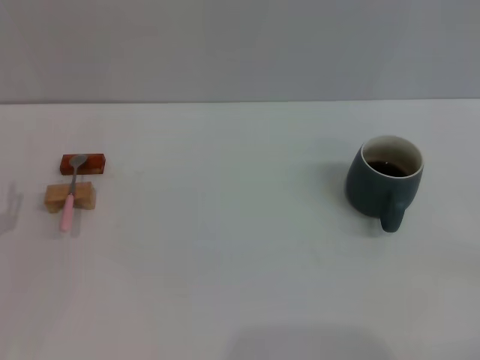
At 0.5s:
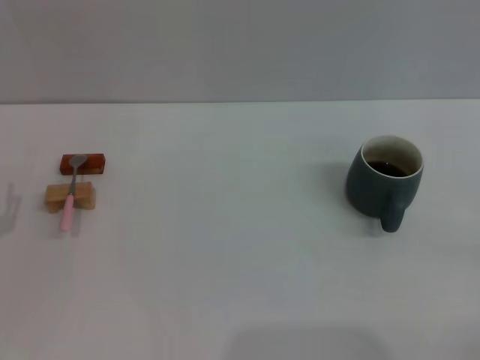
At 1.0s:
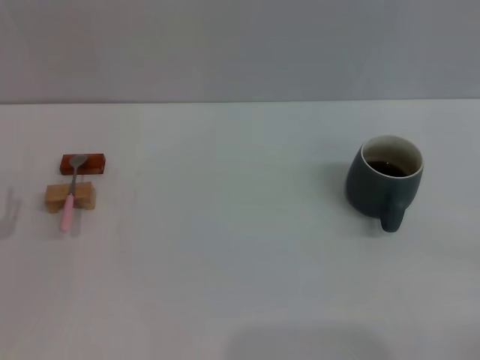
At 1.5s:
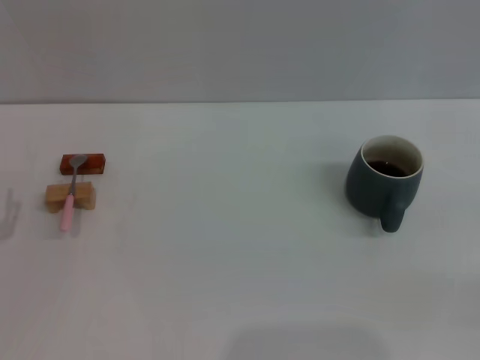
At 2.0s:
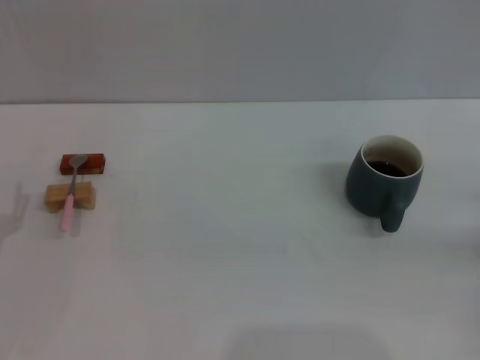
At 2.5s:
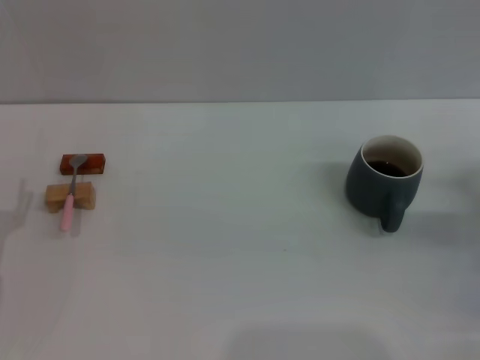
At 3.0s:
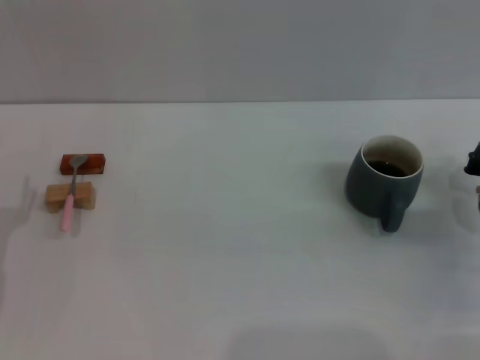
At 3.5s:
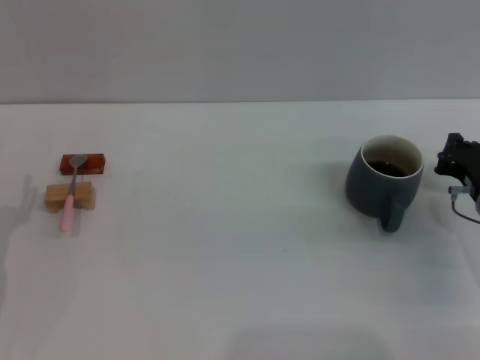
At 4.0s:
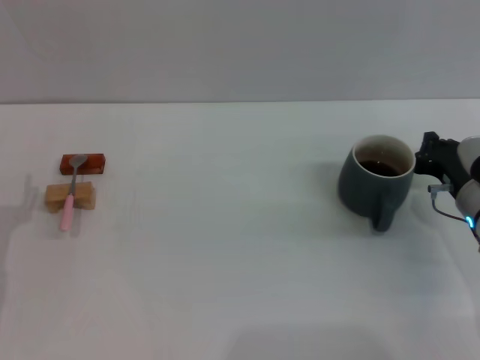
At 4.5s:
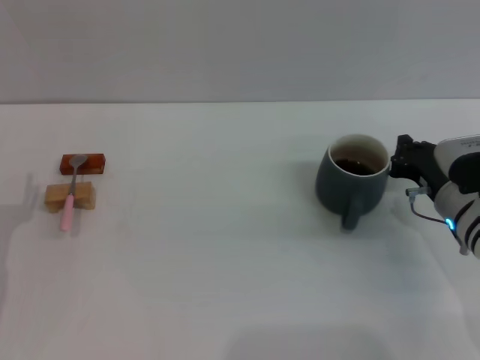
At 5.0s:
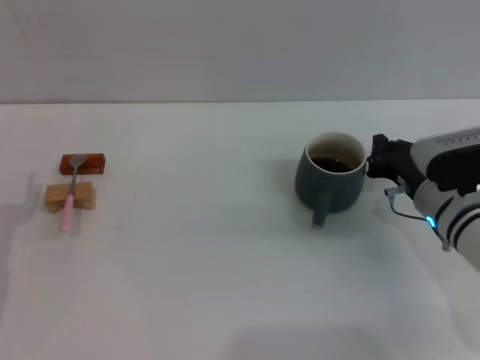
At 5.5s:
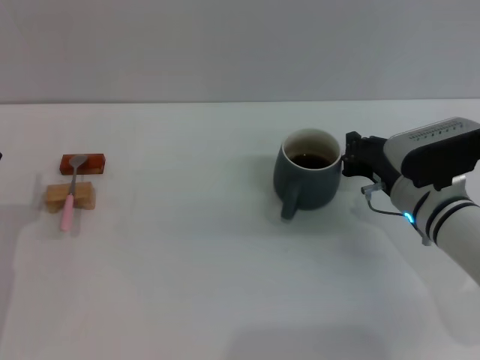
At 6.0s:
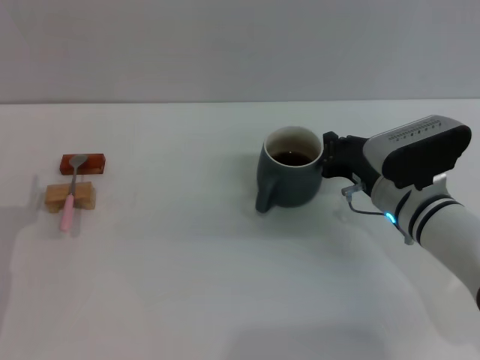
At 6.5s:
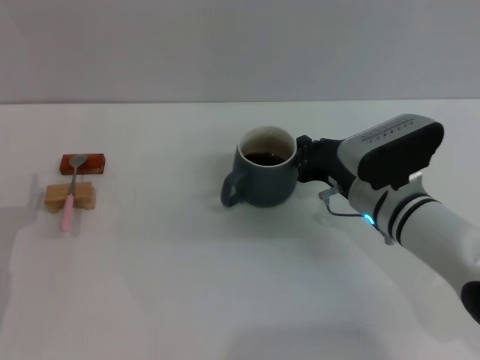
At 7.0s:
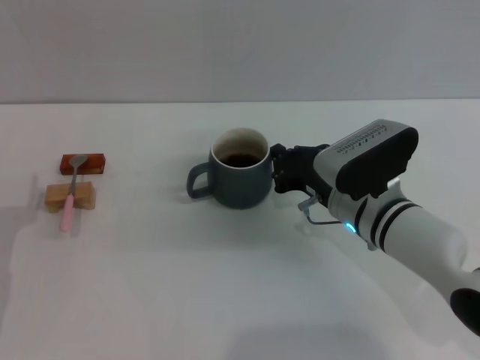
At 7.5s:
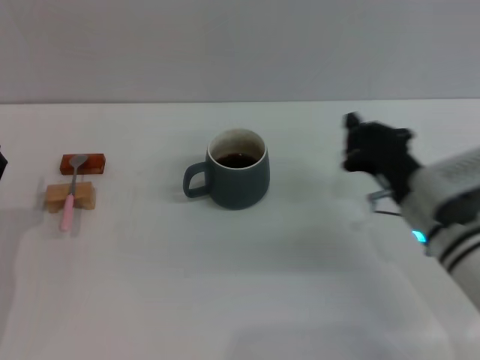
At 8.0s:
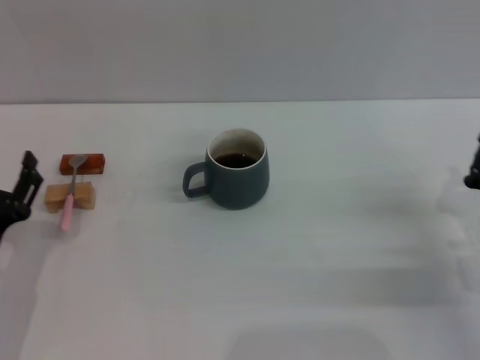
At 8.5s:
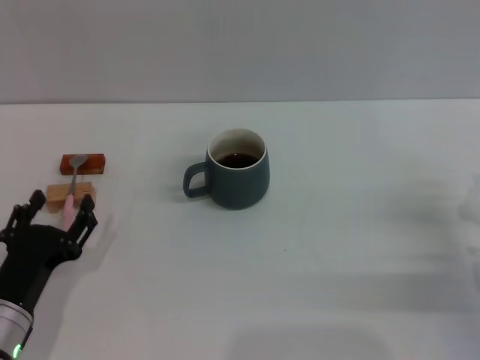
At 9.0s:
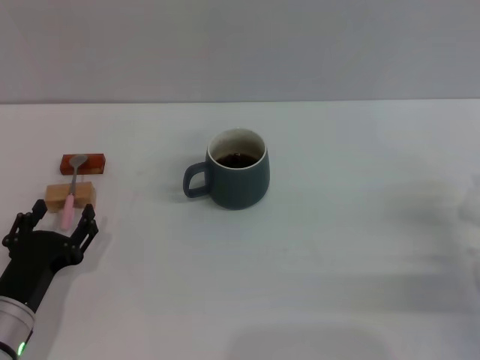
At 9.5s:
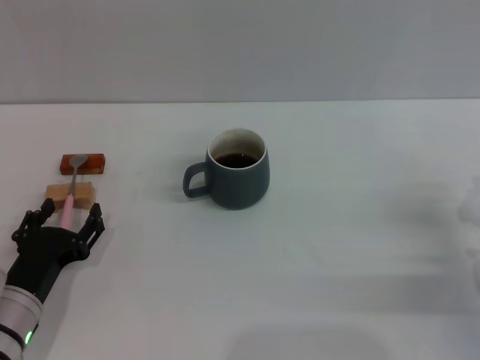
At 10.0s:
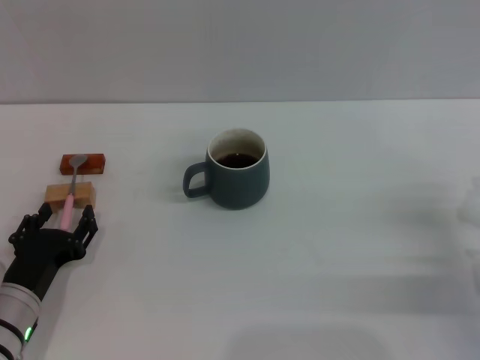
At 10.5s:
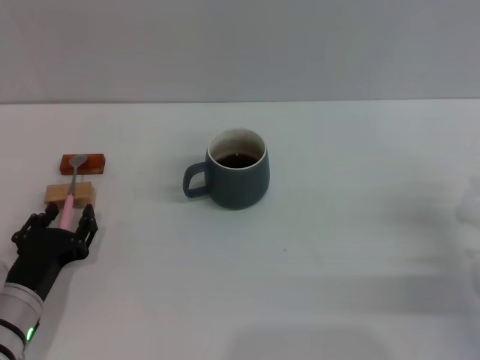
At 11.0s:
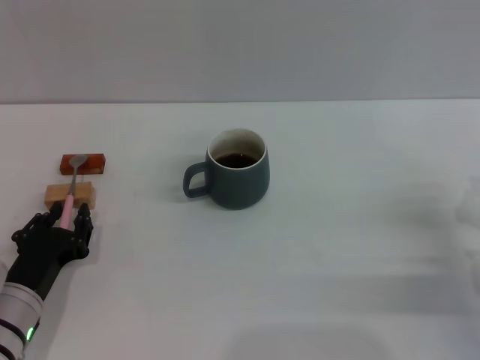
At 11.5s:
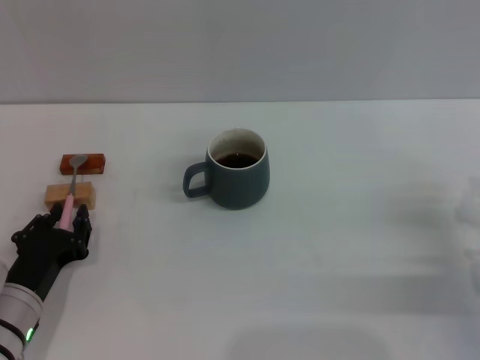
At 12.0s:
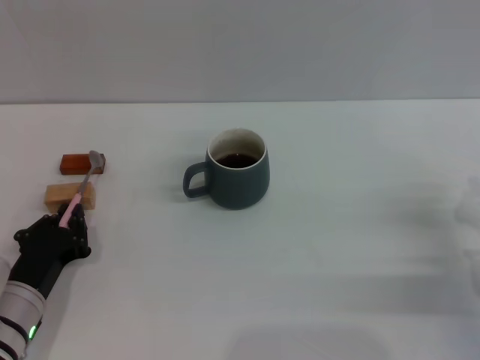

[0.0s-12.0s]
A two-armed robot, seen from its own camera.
Task of the whole recording: Move the grey cup to the center, lift the pink spoon, stir it three times in the cup, and put the spoon into the cup.
Step, 0.0s to 7.0s: Move the cup with coffee to the center of view with the right gripper.
2.0s to 4.0s: The right gripper travels to the left by some 10 cm.
4.0s to 6.0s: The right gripper shifts about 10 cm to the left.
6.0s to 8.0s: The right gripper heads to the right and backward, covering some 15 cm.
8.0s to 10.0s: The grippers move only a little.
10.0s to 12.0s: The left gripper closes.

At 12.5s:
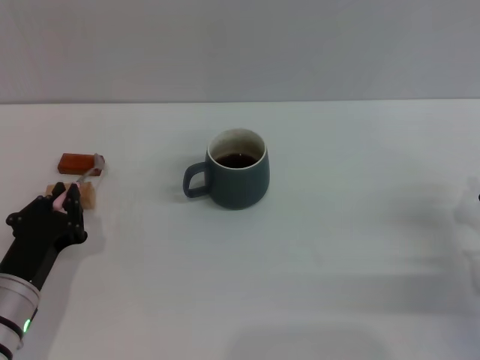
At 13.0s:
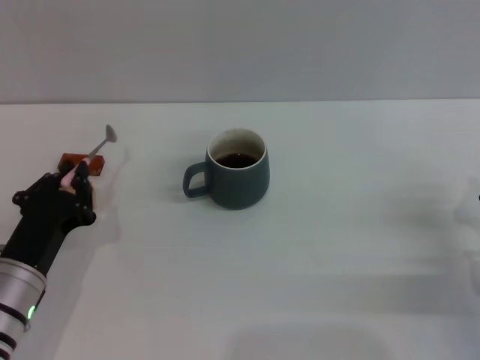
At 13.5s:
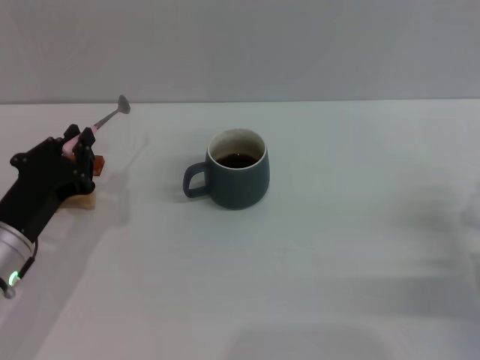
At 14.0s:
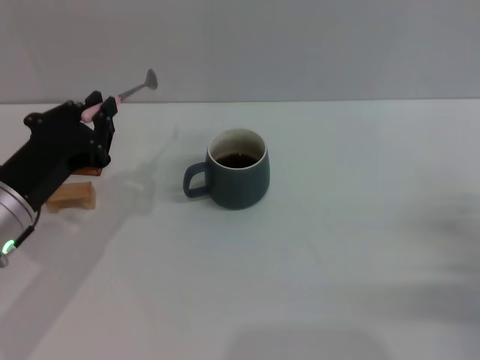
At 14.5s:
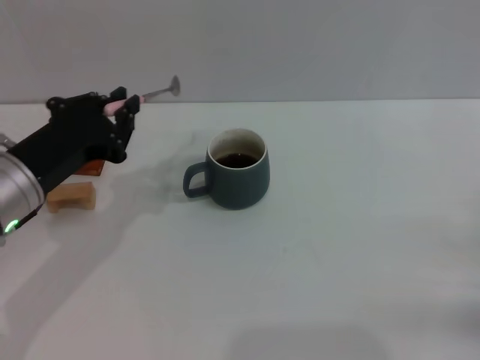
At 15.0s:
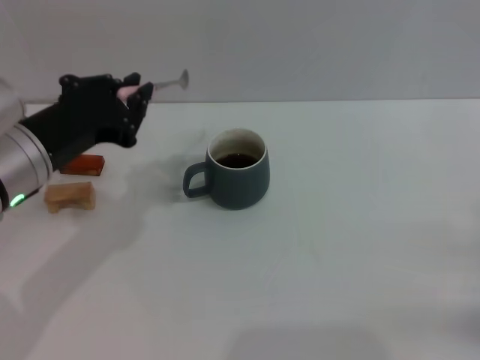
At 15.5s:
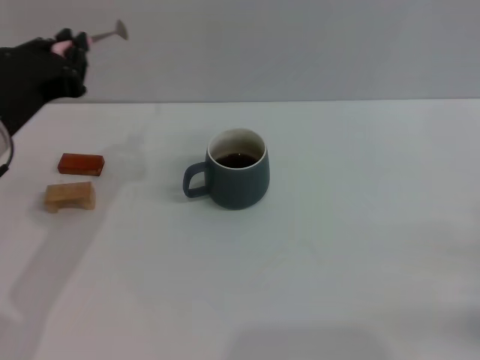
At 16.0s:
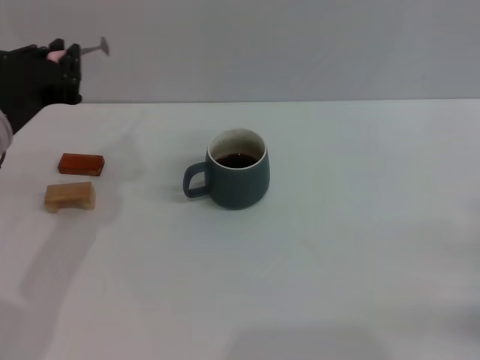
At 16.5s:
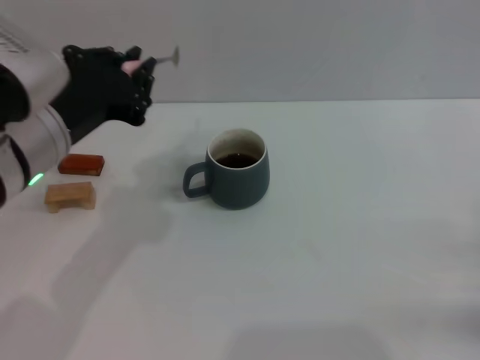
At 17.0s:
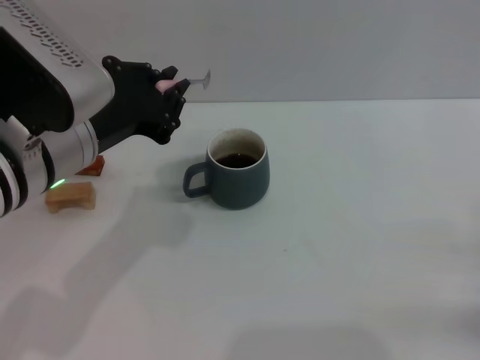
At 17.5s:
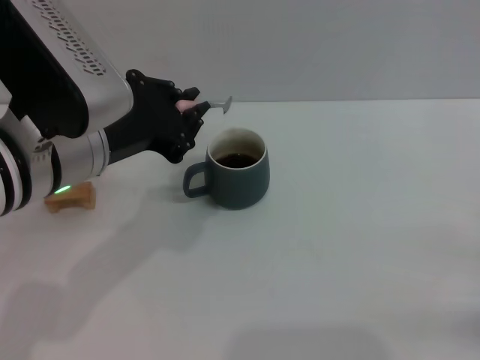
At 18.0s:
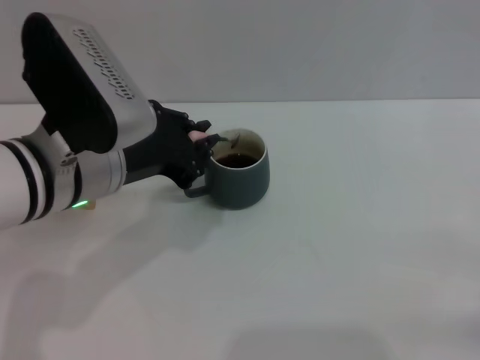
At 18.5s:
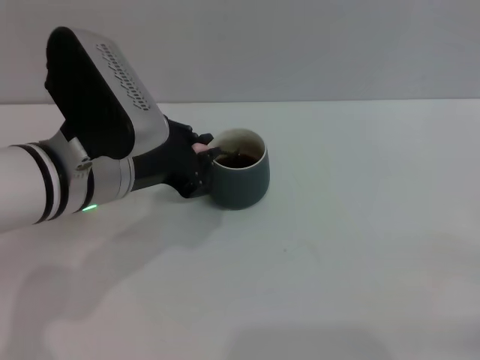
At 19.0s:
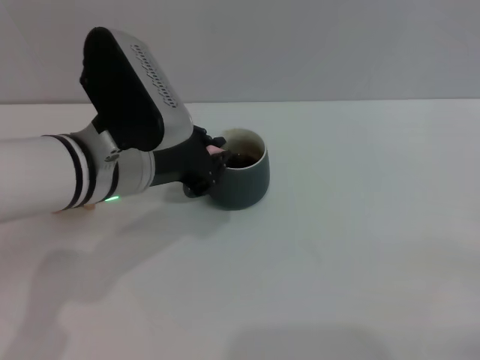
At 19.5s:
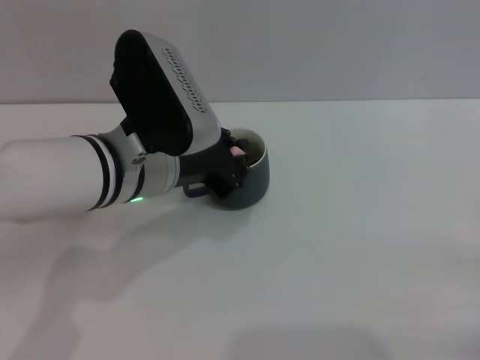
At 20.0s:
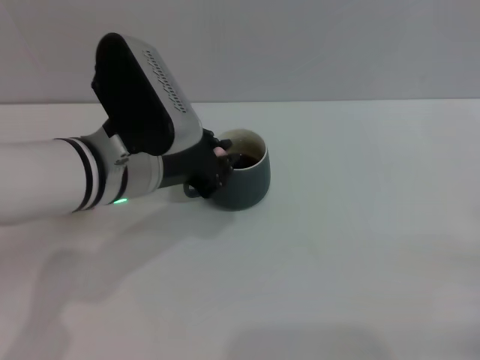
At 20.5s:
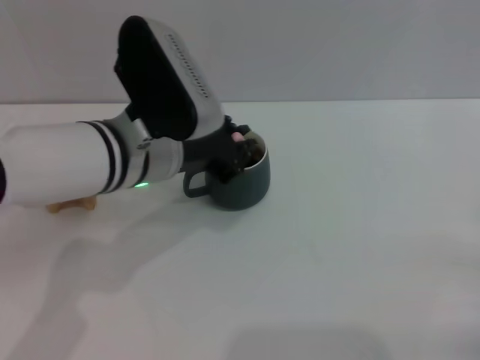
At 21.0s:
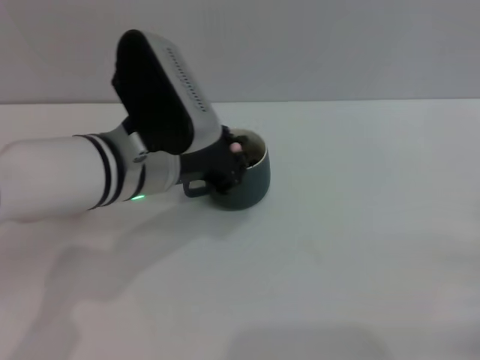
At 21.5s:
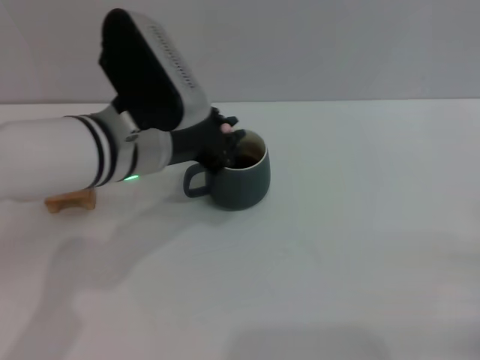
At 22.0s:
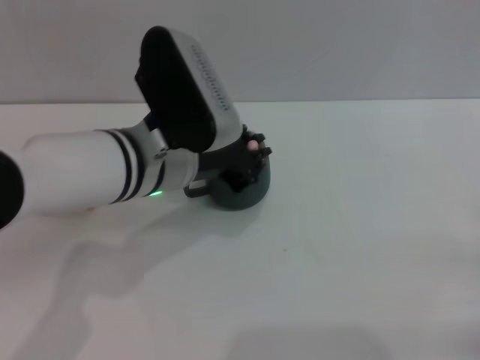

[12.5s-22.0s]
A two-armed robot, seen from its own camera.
Task of the whole recording: Move the grey cup to the center, lift the pink spoon, stir it three times in the cup, and put the spoon into the cup.
12.5s to 14.5s: The right gripper moves to the right, about 5 cm; the left gripper goes about 15 cm upward.
14.5s to 16.5s: The left gripper travels upward by approximately 5 cm.
18.0s to 20.0s: There are only small adjustments of the grippers.
20.0s to 22.0s: There are only small adjustments of the grippers.

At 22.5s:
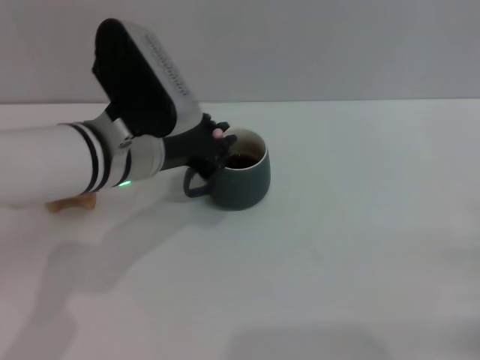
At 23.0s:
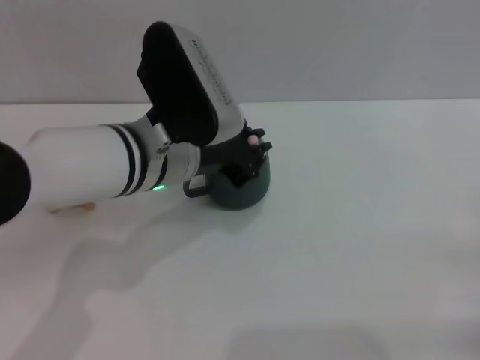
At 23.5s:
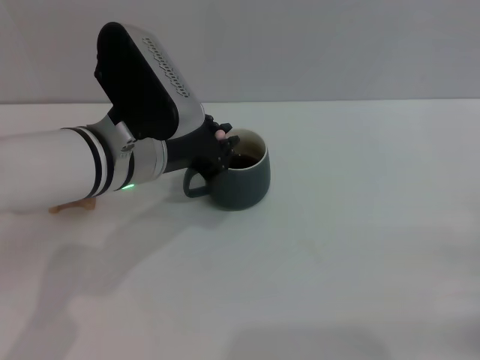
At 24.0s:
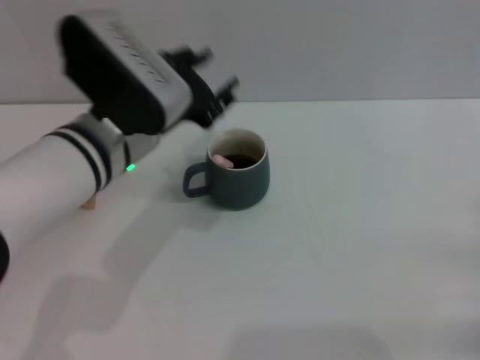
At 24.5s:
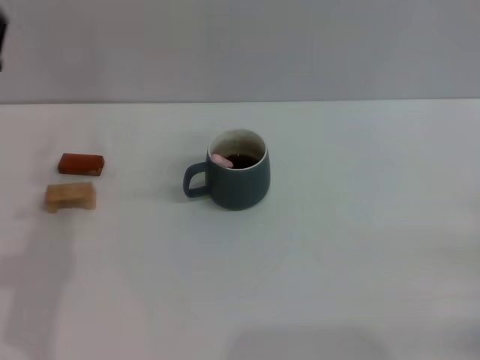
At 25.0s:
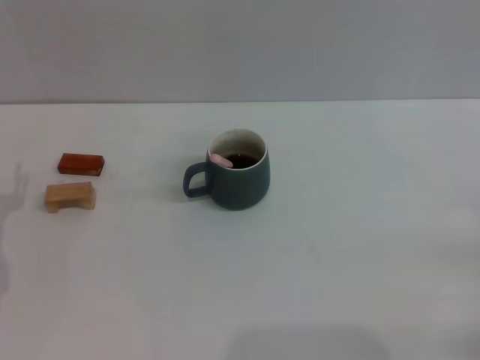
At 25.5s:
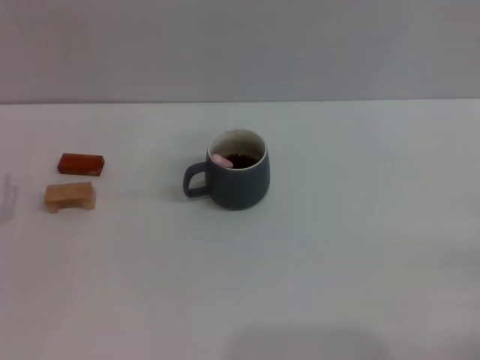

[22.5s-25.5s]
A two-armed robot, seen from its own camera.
Task of the whole recording: Move the grey cup to the center, lift the pink spoon, stir it three times in the cup, and put the spoon into the cup.
22.5s to 24.0s: The left gripper opens up.
24.0s to 25.5s: The left gripper heads to the left, downward and backward, covering roughly 25 cm, and opens its fingers.

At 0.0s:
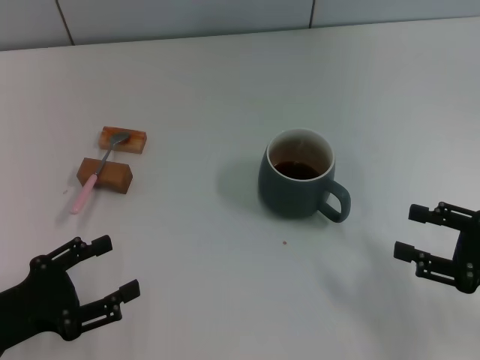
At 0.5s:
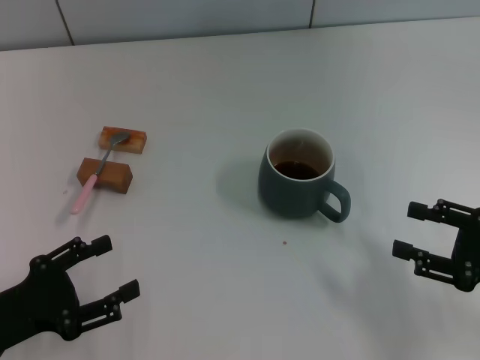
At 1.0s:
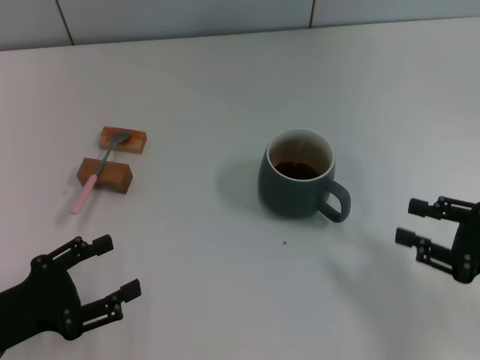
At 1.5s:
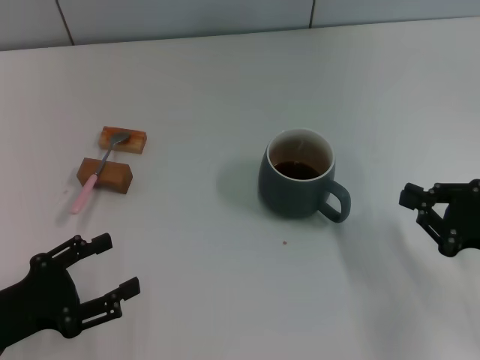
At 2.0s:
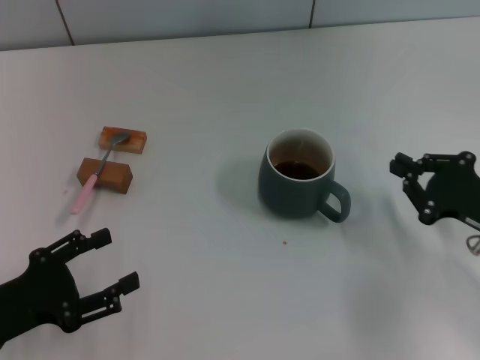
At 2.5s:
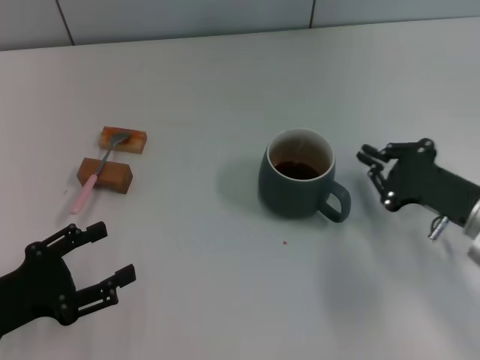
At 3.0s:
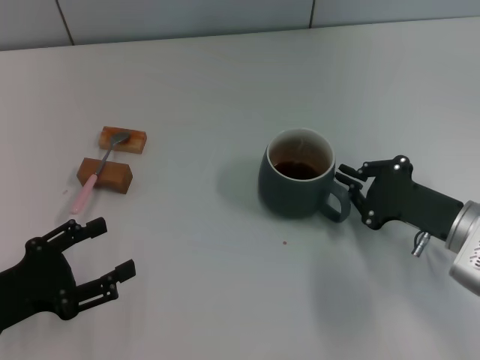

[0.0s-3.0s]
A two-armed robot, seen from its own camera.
Task of the whole recording: Move the grey cup to the center, lift the pink spoon, stir it three times in the cup, and put the spoon into the cup.
0.0s to 1.5s: The right gripper closes up.
1.5s to 3.0s: The right gripper travels to the left by roughly 5 cm.
